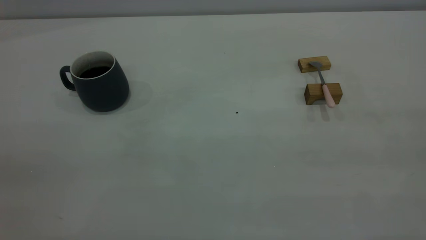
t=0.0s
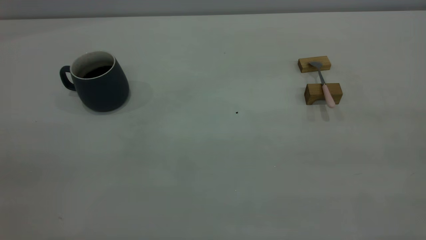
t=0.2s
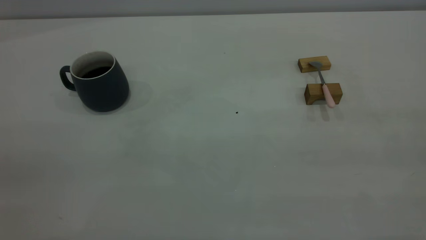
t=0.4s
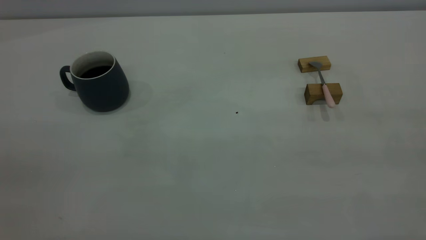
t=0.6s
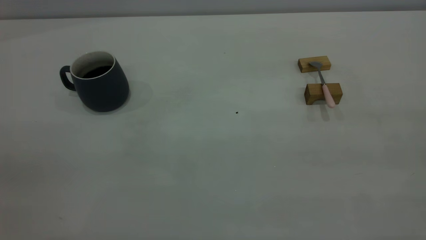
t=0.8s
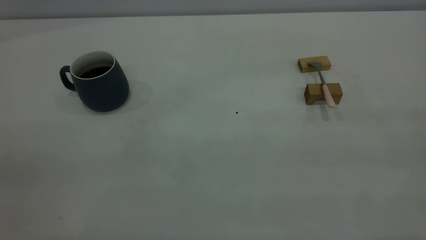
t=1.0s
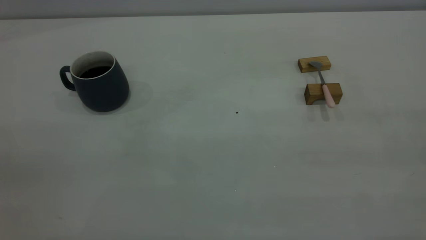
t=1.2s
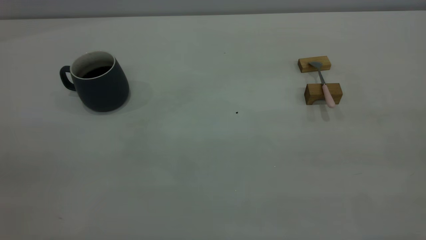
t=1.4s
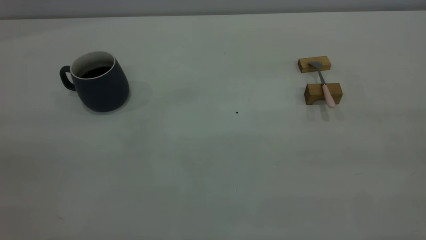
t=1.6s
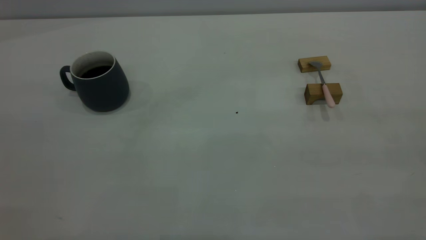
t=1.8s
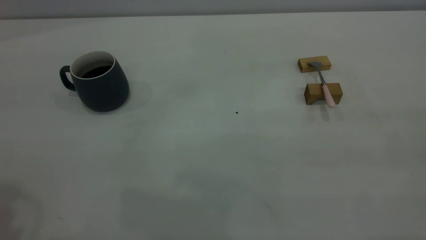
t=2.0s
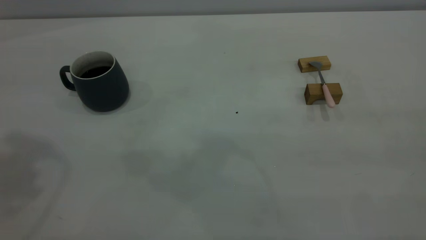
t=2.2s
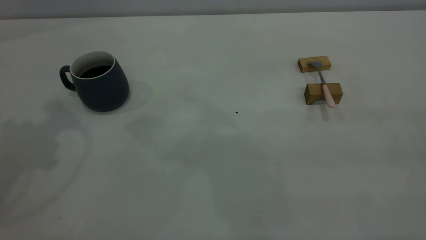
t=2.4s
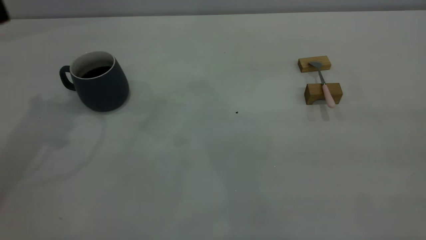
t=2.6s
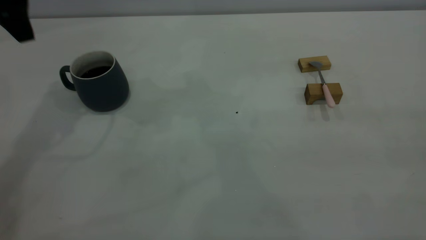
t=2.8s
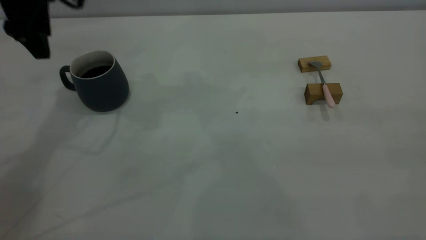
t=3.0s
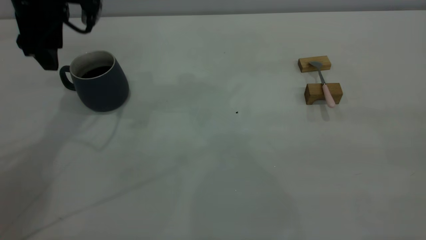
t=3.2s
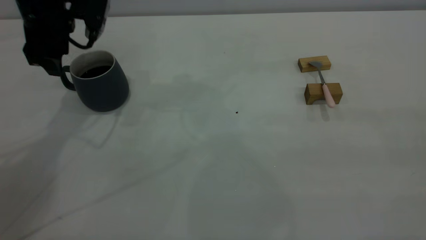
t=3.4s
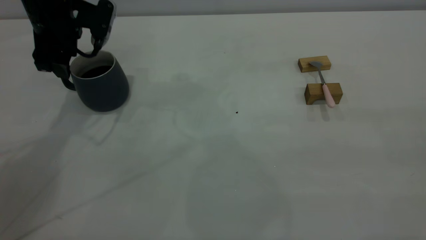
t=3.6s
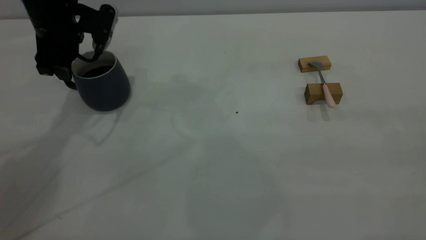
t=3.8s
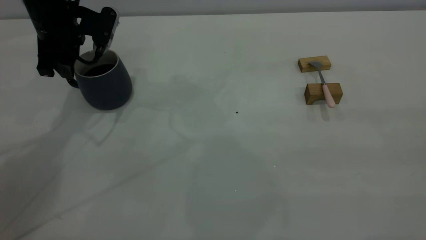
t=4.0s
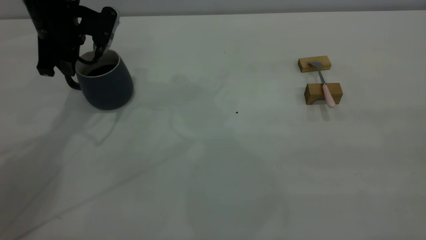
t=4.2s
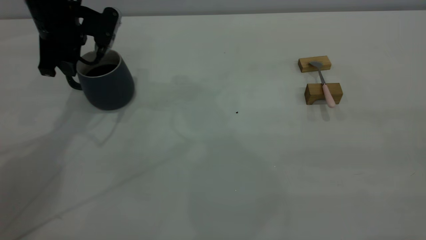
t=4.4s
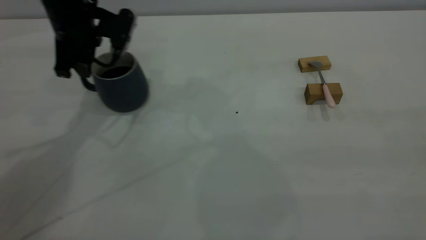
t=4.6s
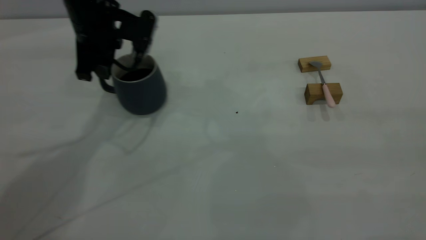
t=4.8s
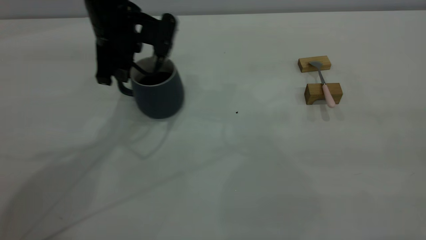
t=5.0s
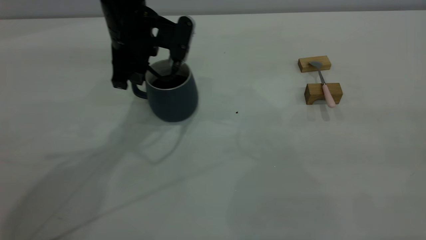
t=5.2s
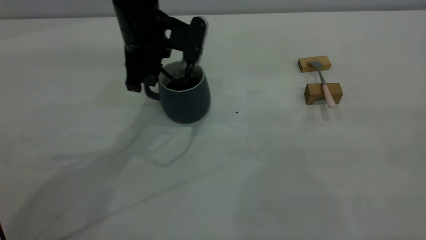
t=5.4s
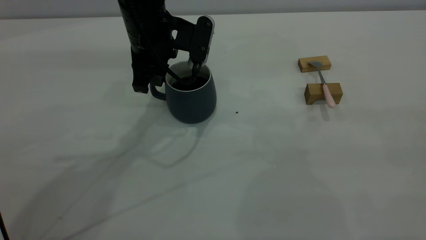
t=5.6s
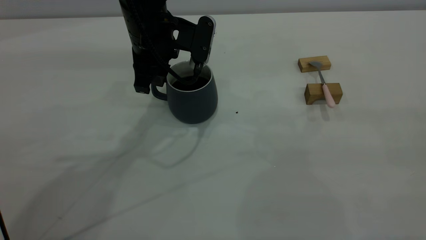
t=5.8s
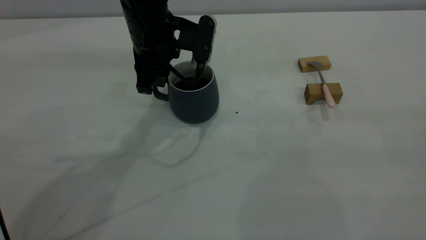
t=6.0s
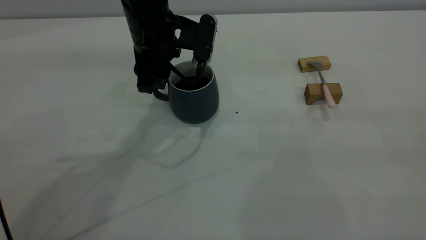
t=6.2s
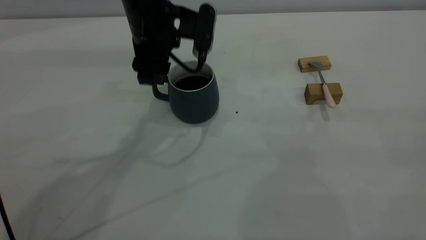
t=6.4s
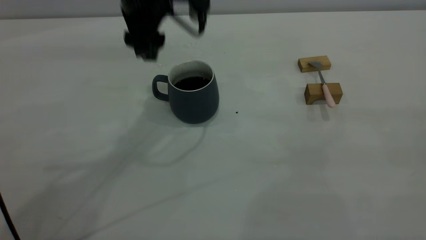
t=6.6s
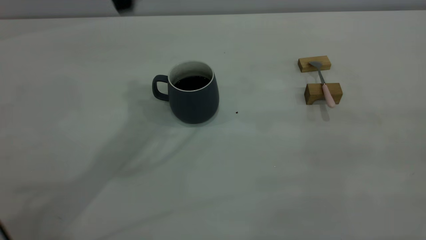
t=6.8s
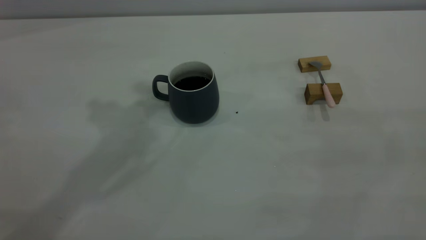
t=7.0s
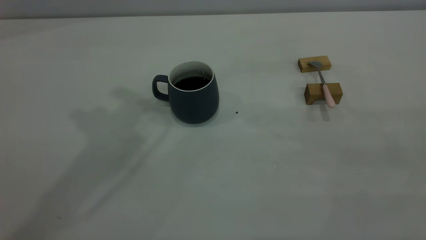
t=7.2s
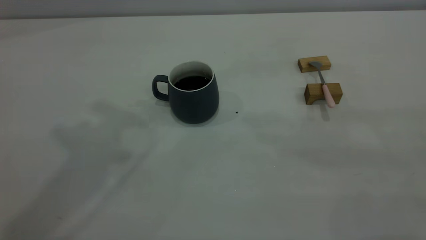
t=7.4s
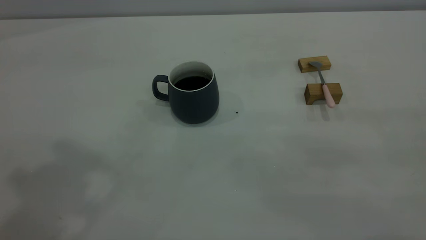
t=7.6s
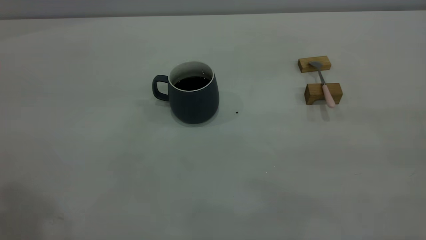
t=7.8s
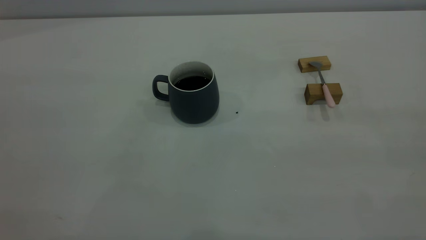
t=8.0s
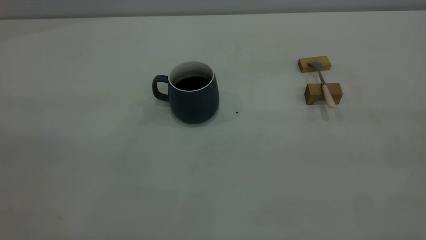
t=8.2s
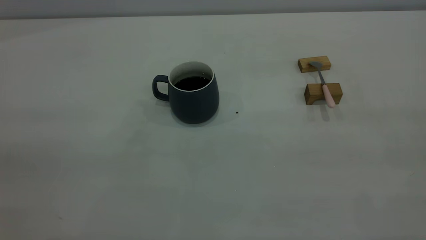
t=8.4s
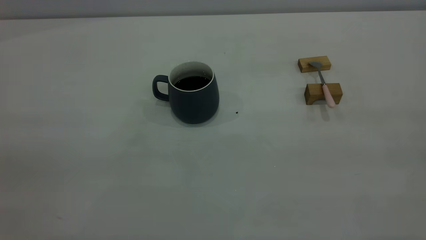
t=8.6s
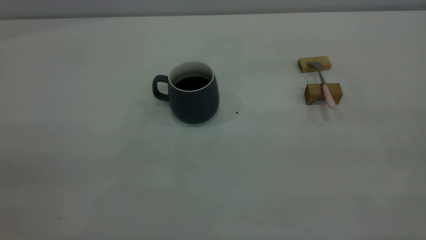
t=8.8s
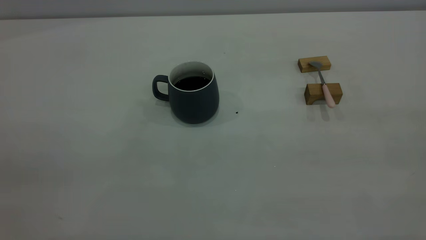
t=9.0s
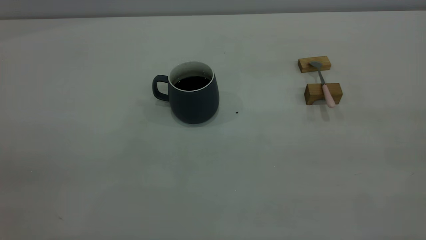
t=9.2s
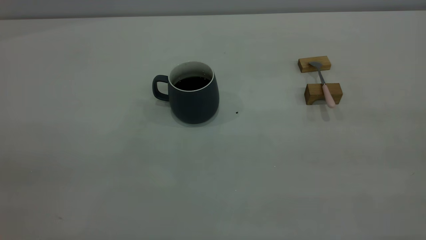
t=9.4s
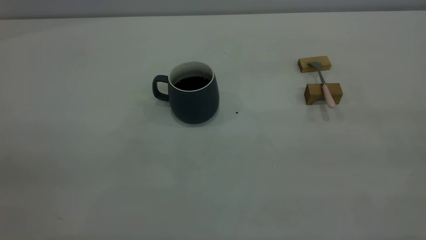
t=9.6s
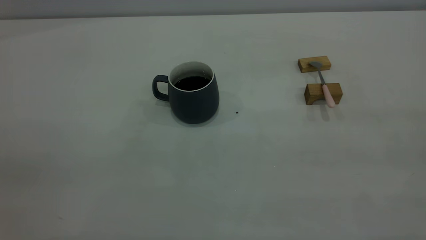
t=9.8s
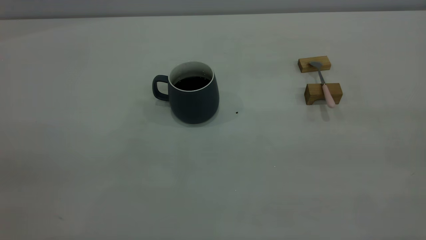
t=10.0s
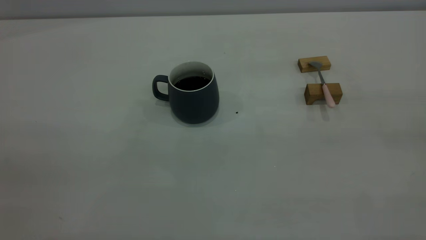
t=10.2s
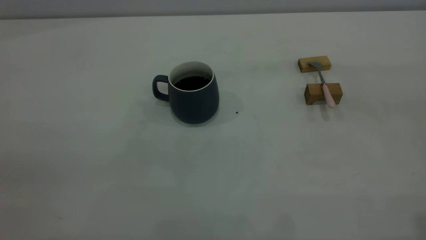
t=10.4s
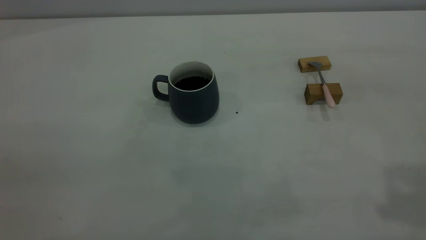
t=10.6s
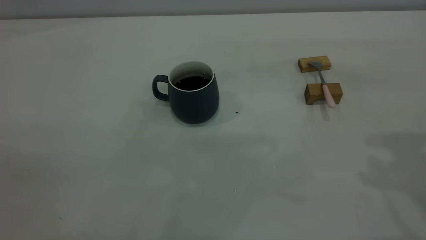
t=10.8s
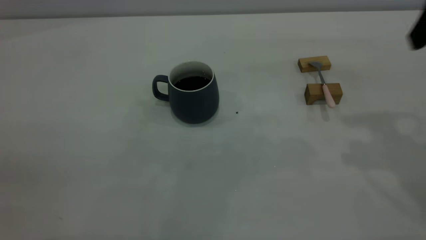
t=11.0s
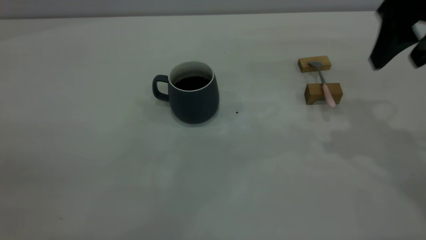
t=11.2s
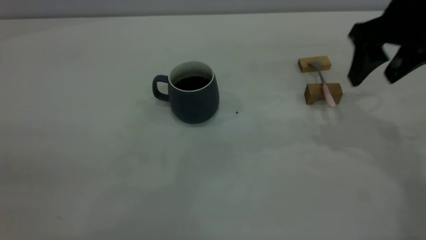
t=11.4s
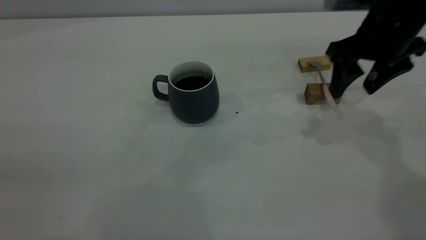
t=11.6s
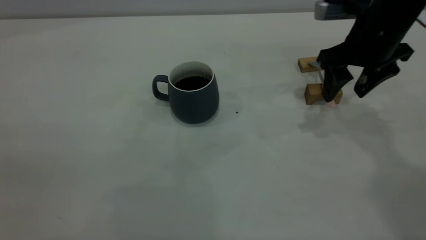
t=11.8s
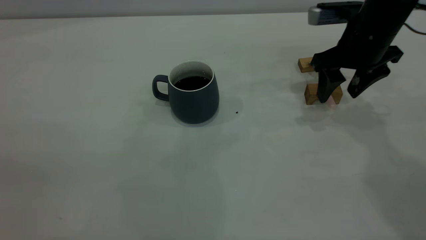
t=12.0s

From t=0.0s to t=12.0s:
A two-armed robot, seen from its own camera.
Step, from t=0.0s to t=6.6s: Move the cup with coffee to the center of view.
From t=1.6s to t=3.0s: The left gripper goes some 40 cm forward.
From t=3.0s to t=4.4s: The left gripper travels downward by some 5 cm, and closes up.
From t=4.4s to t=6.0s: The left gripper shifts about 15 cm to the right.
From t=6.0s to t=7.6s: The left gripper travels upward and backward by approximately 35 cm, and opens.
From t=10.4s to t=12.0s: The right gripper travels forward and downward by approximately 40 cm.

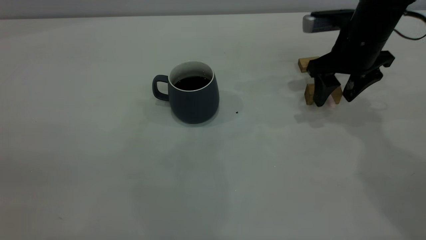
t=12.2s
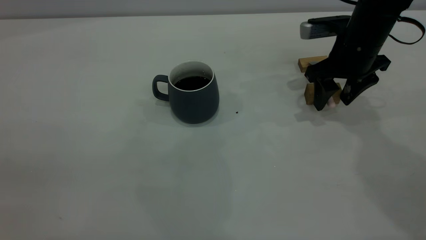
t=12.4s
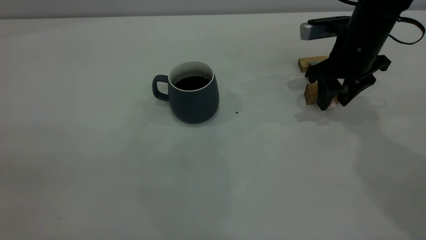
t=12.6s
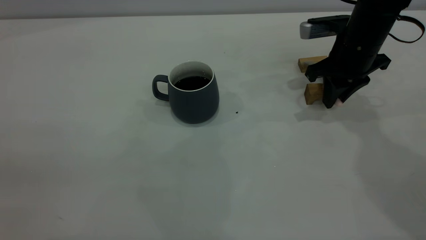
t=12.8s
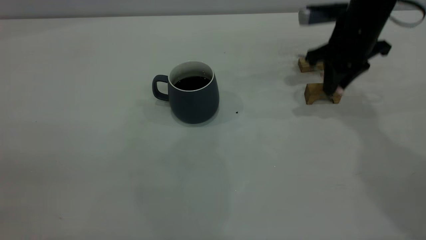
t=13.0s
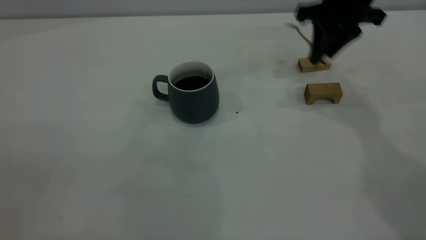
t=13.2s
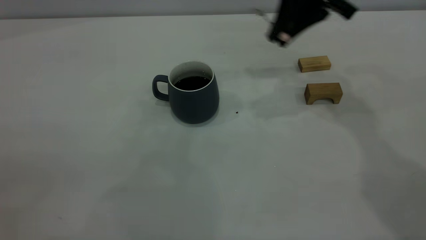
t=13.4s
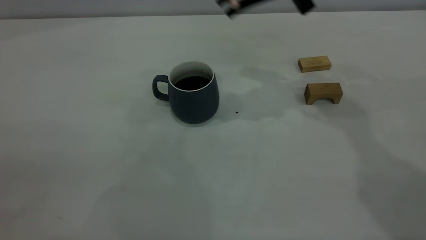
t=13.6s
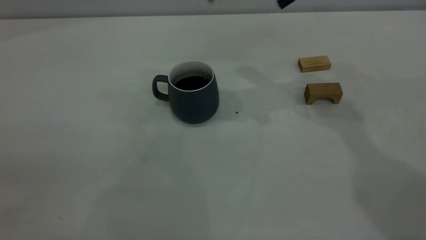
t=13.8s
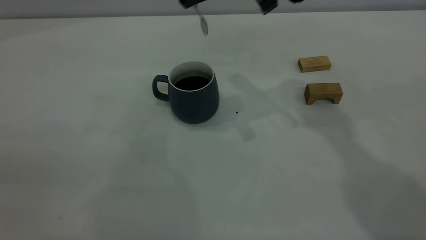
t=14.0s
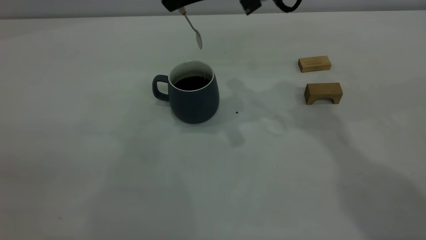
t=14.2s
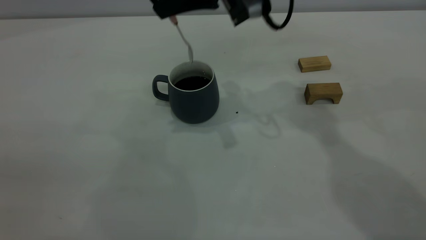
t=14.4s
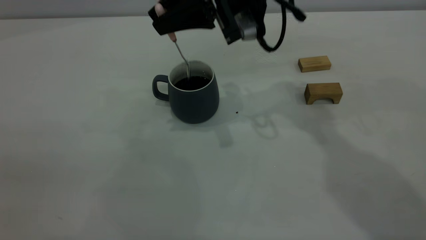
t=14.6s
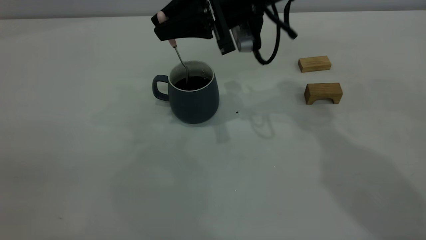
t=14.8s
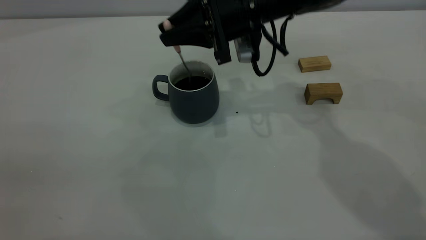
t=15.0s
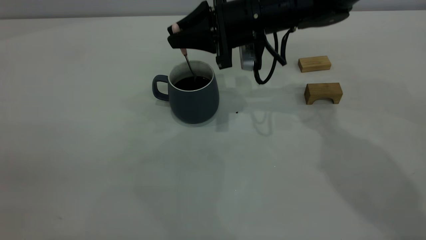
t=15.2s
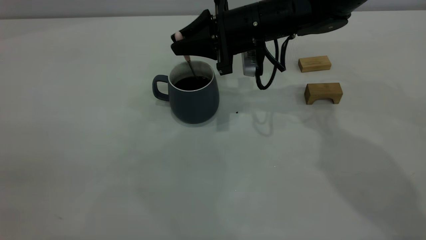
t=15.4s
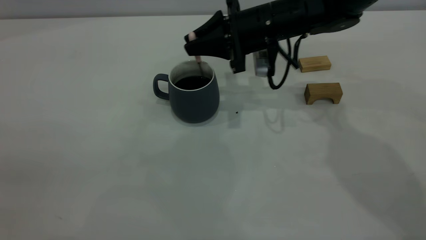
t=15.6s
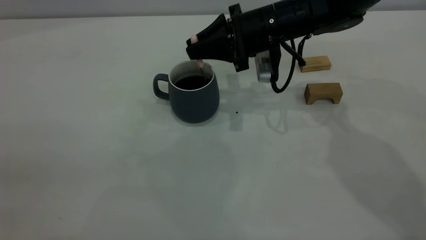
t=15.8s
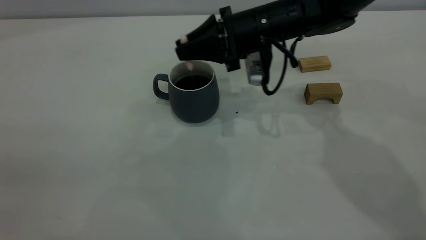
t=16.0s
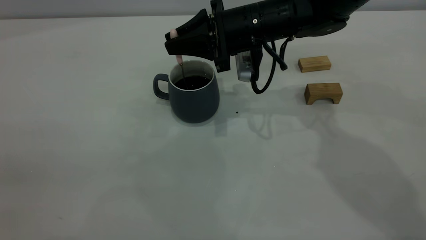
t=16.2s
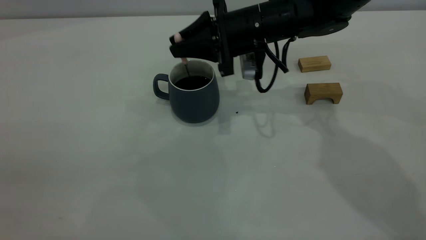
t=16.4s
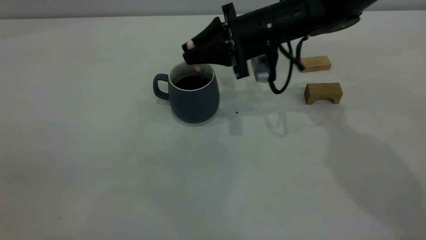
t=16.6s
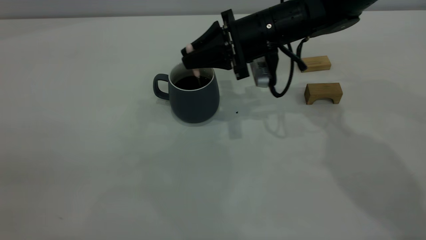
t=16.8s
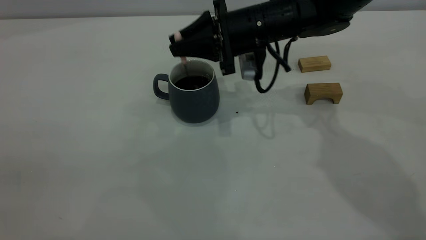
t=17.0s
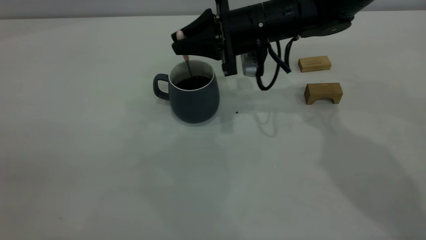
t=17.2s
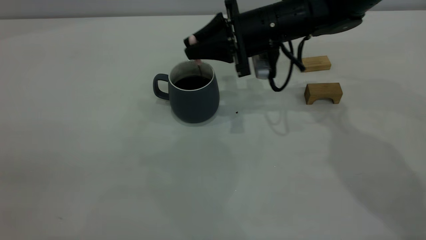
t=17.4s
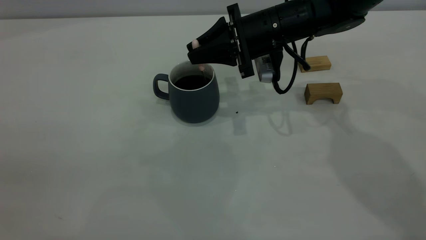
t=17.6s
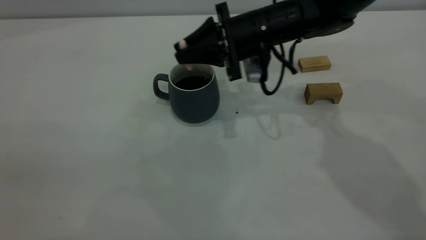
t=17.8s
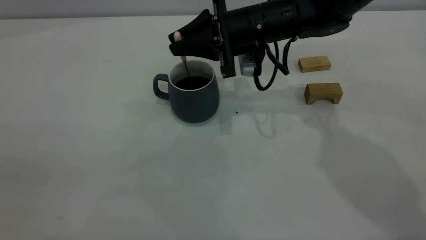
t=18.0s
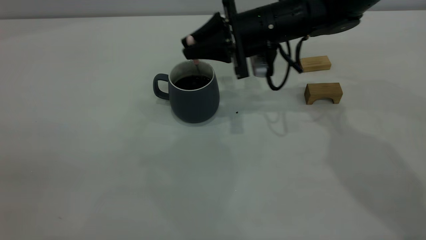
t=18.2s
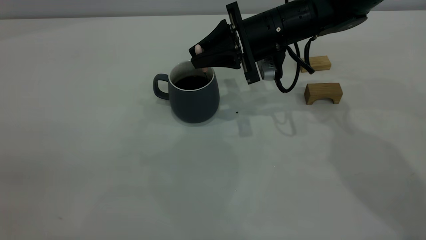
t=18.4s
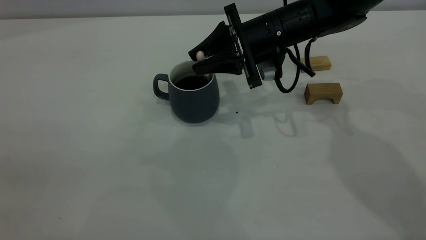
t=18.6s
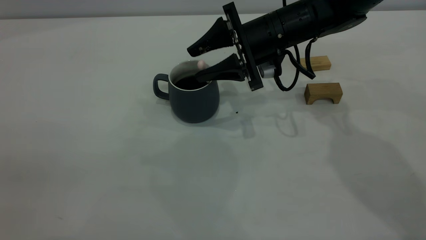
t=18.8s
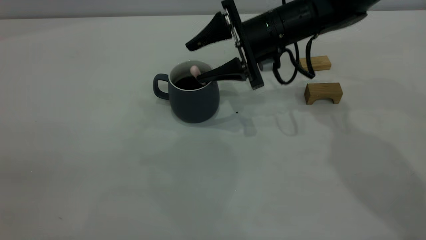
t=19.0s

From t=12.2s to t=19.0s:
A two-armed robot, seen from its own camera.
From t=12.2s to t=13.6s: The right gripper heads upward and to the left, covering some 15 cm, and closes up.
From t=13.6s to t=15.0s: The right gripper shifts some 10 cm downward and to the left.
From t=15.0s to t=17.6s: The grippers stay close to where they were, moving slightly.
From t=17.6s to t=19.0s: The right gripper opens up.
